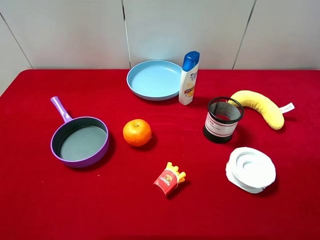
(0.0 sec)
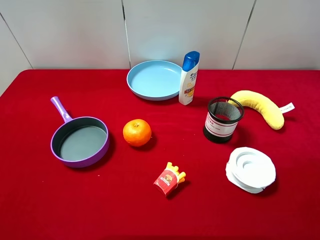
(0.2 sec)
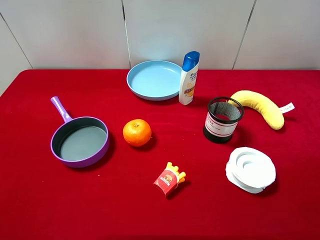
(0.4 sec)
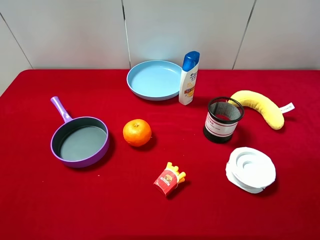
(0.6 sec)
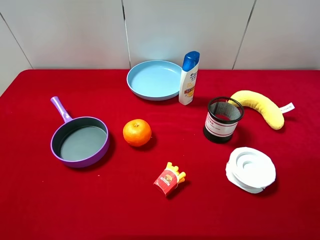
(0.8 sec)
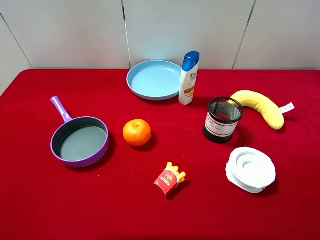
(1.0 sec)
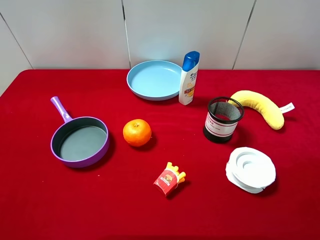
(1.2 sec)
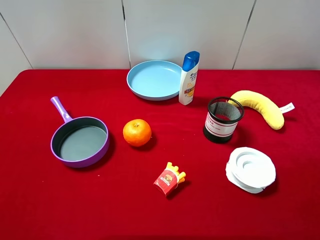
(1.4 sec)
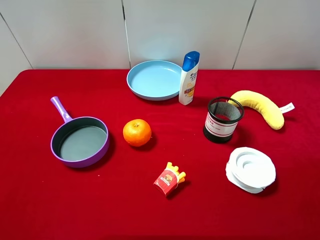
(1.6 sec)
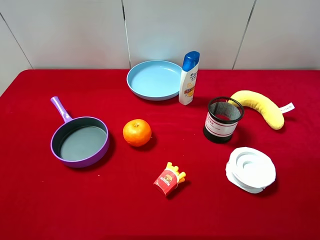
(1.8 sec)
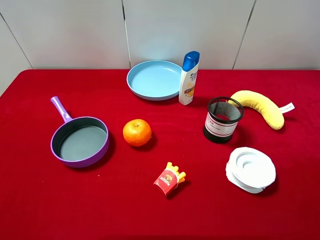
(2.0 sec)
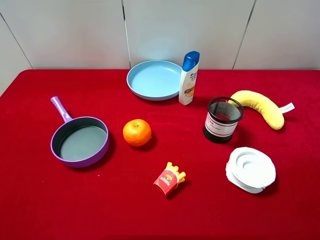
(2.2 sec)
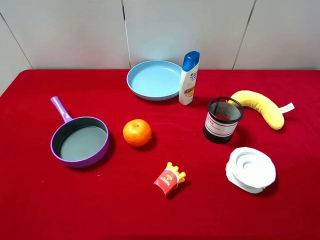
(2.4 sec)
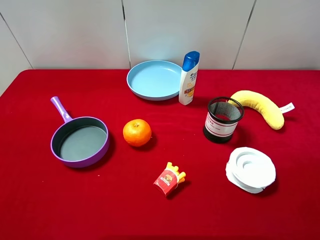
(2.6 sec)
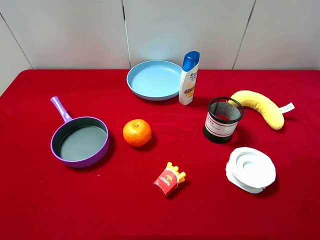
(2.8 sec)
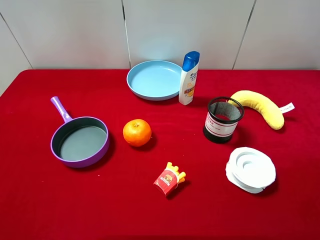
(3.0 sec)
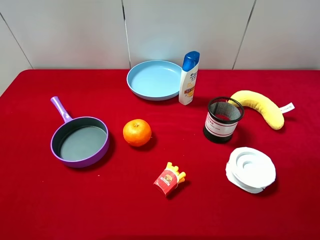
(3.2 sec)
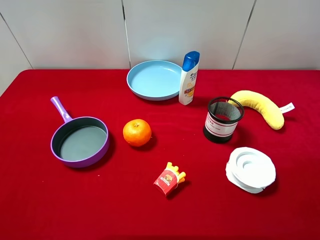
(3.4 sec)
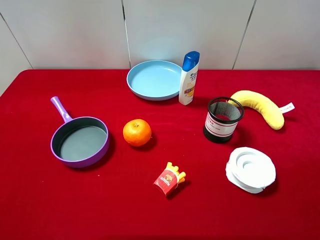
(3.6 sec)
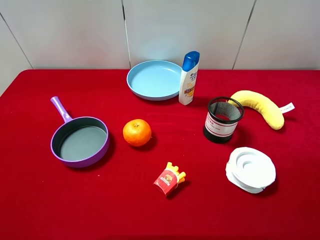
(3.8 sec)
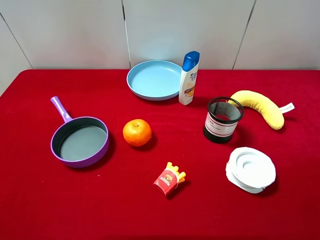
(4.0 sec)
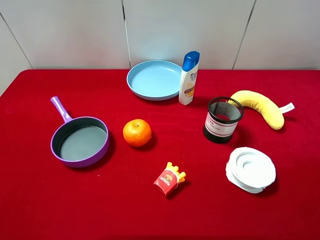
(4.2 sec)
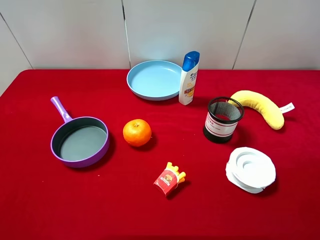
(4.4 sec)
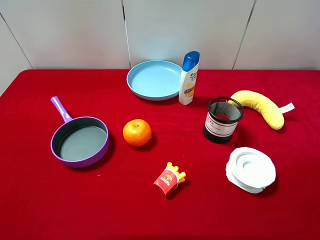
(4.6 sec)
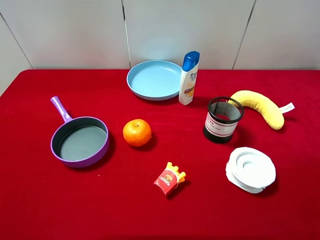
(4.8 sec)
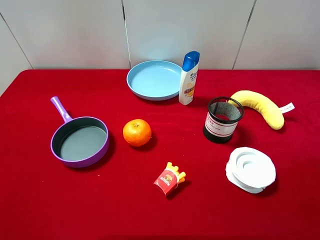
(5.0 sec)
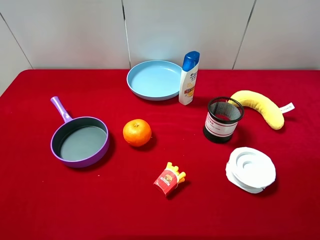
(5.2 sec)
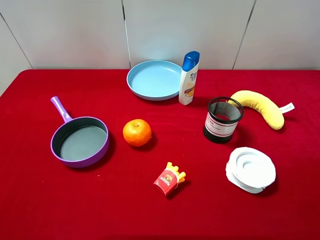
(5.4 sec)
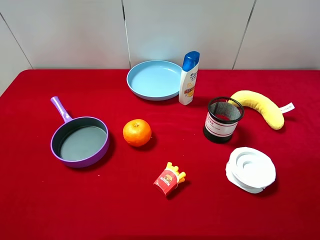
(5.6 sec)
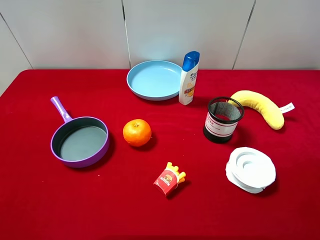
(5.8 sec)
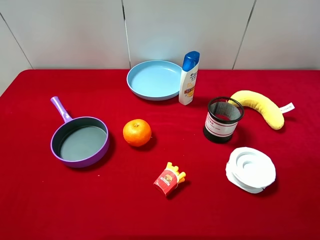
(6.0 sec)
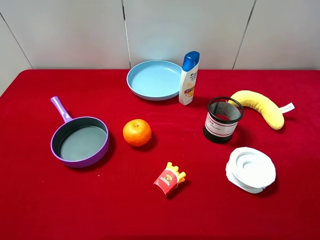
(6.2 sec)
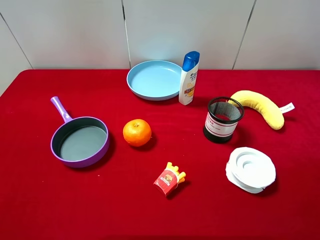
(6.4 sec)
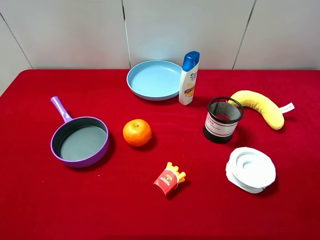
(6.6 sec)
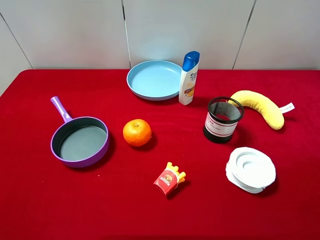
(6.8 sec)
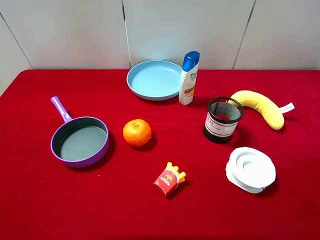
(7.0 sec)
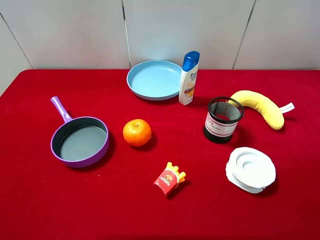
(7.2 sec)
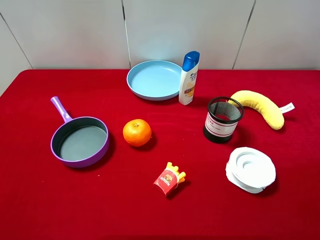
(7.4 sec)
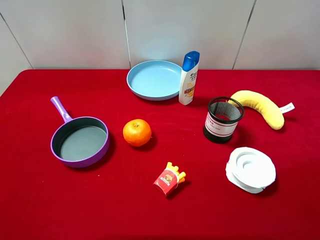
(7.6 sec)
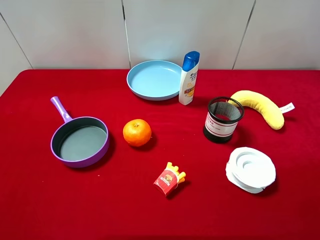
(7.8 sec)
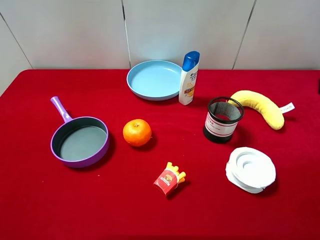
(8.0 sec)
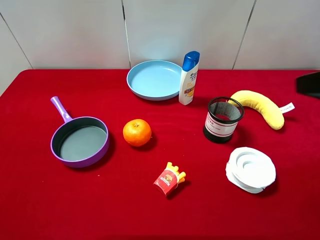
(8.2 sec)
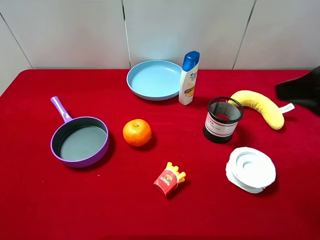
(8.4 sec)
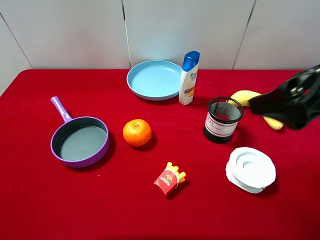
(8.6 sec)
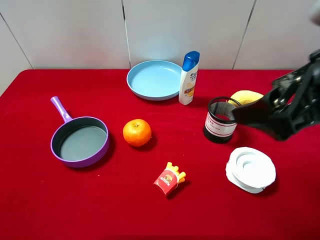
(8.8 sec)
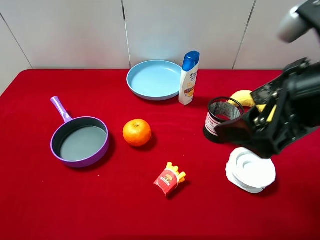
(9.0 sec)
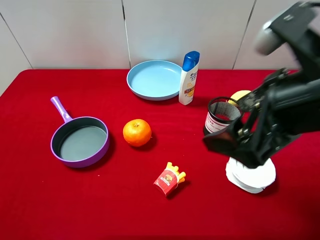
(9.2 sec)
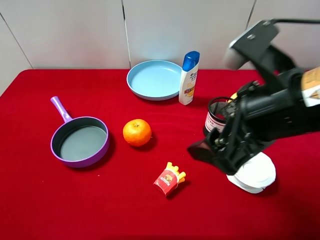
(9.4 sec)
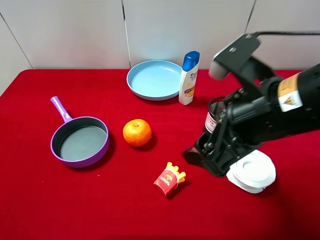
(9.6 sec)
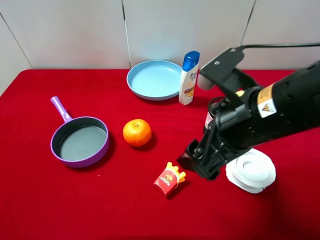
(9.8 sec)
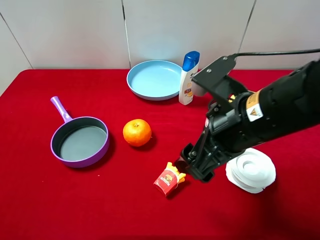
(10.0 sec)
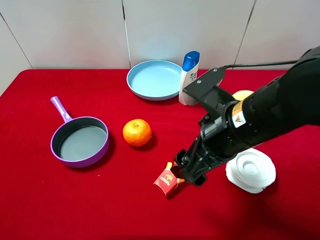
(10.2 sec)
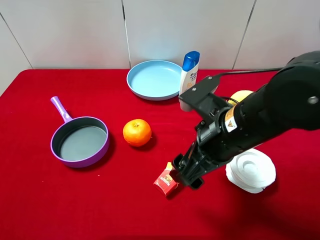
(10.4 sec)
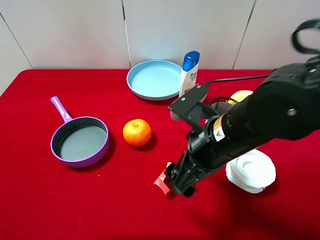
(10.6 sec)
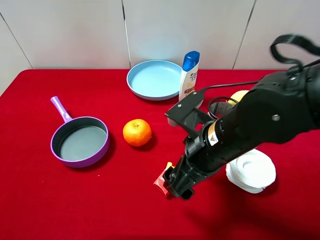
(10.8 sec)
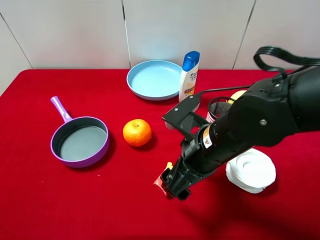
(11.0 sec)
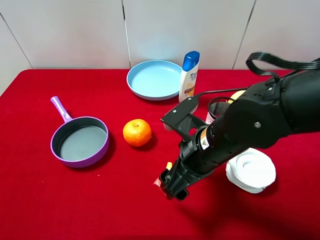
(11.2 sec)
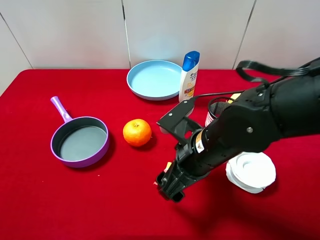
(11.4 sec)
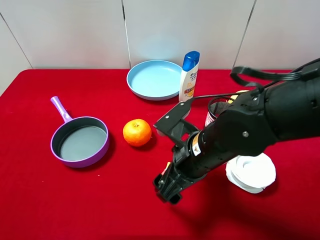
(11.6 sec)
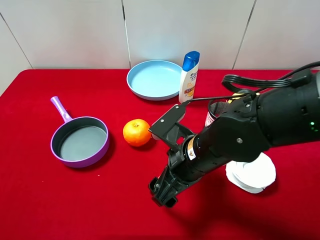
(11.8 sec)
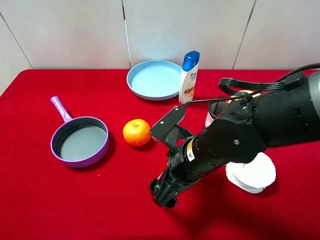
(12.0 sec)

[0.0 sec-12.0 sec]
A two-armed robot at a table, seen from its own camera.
Task of the whole recording: pick up an item with a gripper and place it in a random container on the desktop.
0.0 sec to 6.0 sec: Both grippers stay about where they are.
7.6 sec to 9.0 sec: The right gripper moves to the left and forward, about 15 cm.
9.0 sec to 10.4 sec: The right gripper travels downward and to the left by approximately 10 cm.
10.4 sec to 12.0 sec: The right gripper moves downward, some 5 cm.

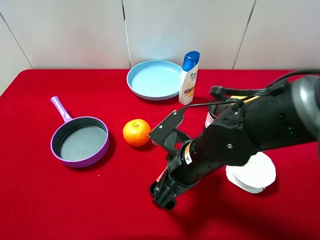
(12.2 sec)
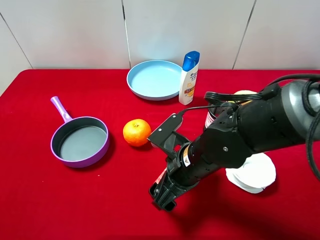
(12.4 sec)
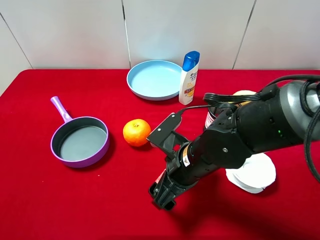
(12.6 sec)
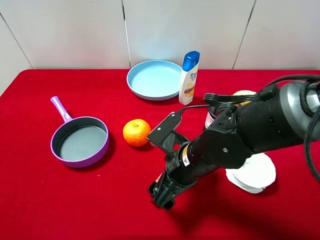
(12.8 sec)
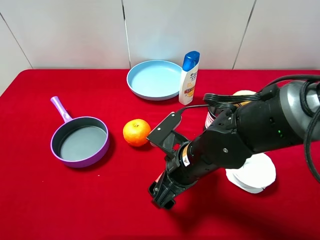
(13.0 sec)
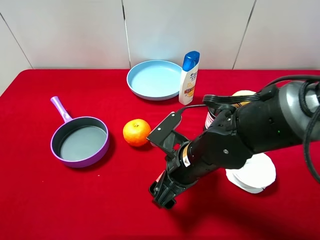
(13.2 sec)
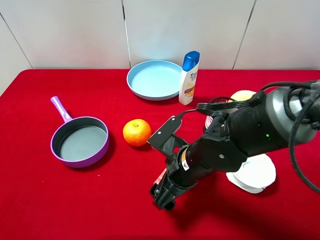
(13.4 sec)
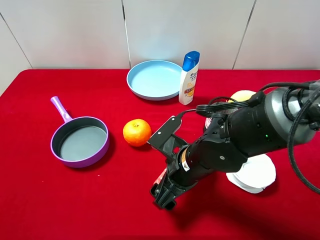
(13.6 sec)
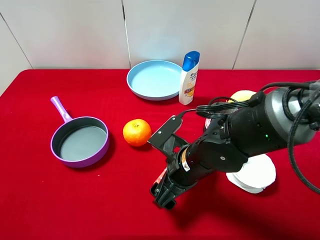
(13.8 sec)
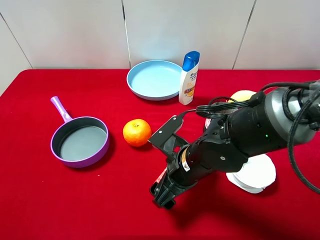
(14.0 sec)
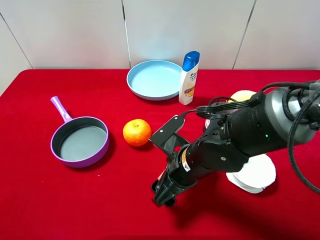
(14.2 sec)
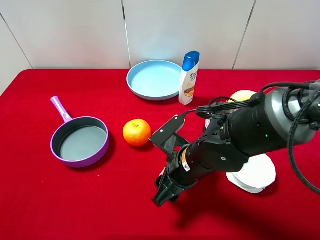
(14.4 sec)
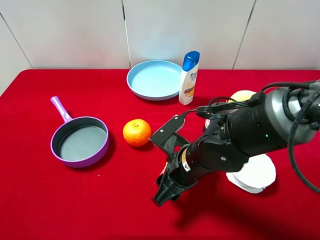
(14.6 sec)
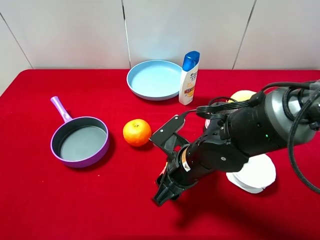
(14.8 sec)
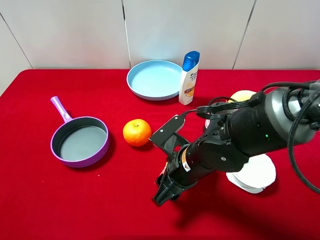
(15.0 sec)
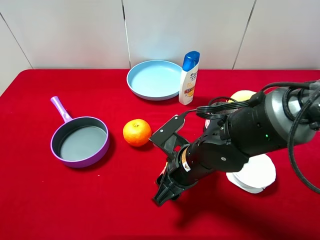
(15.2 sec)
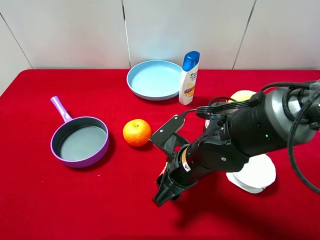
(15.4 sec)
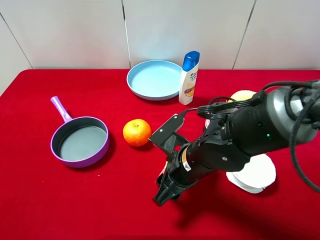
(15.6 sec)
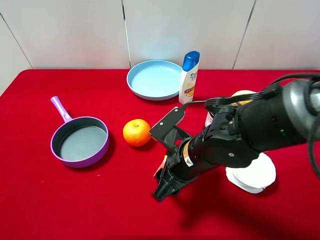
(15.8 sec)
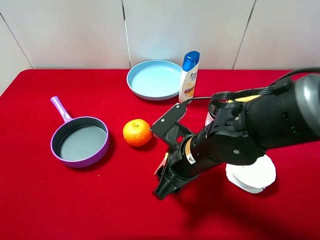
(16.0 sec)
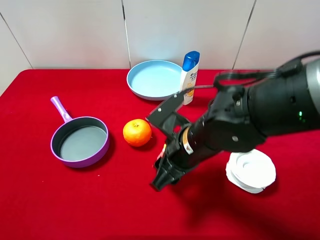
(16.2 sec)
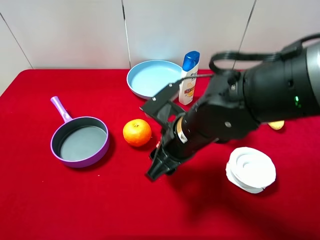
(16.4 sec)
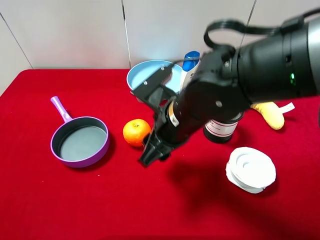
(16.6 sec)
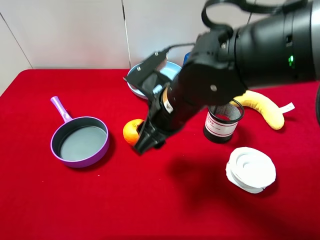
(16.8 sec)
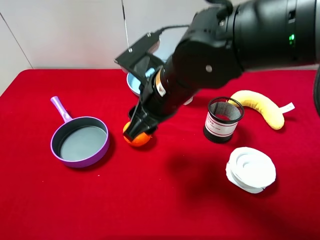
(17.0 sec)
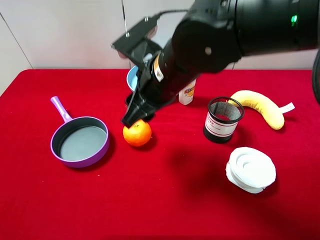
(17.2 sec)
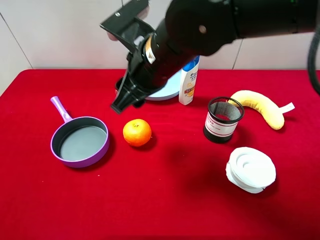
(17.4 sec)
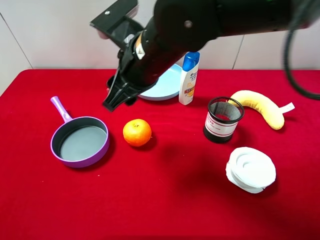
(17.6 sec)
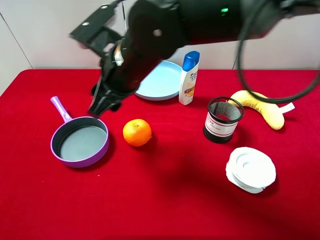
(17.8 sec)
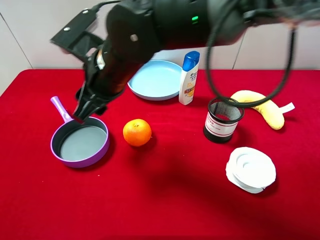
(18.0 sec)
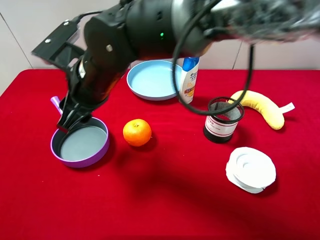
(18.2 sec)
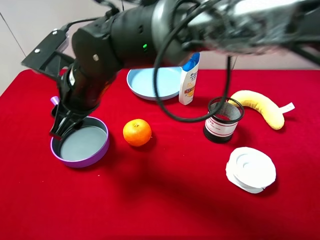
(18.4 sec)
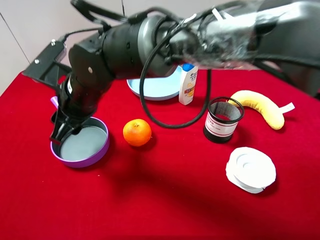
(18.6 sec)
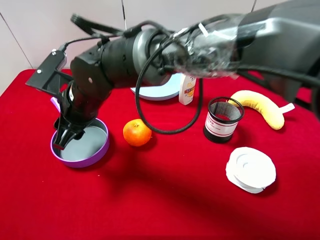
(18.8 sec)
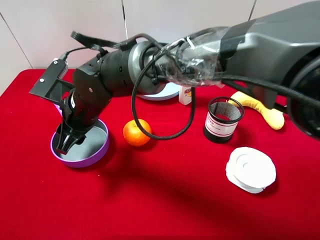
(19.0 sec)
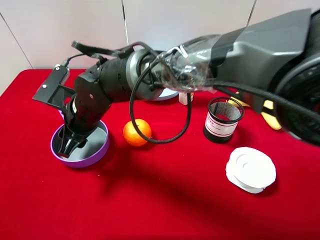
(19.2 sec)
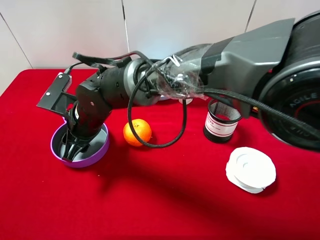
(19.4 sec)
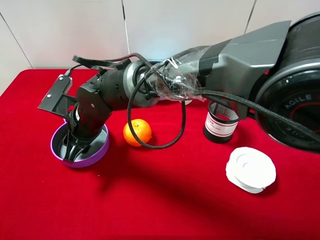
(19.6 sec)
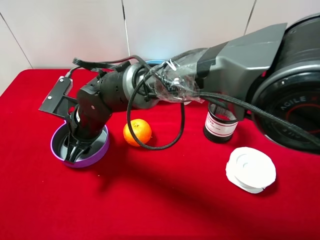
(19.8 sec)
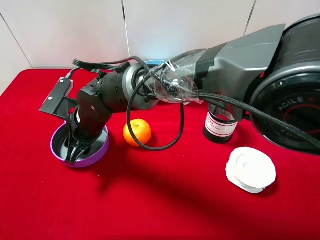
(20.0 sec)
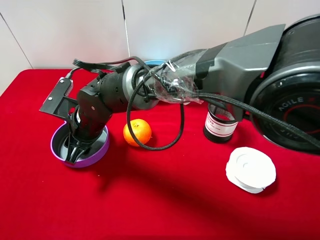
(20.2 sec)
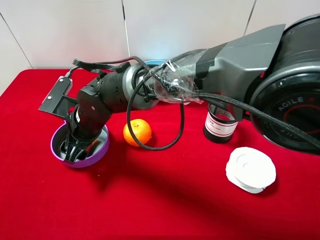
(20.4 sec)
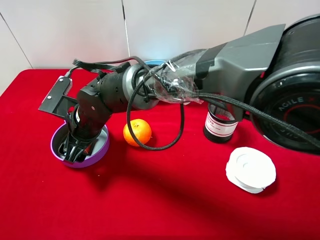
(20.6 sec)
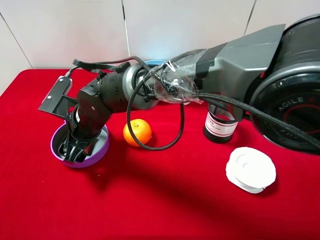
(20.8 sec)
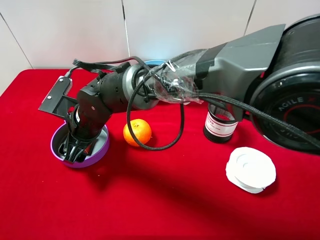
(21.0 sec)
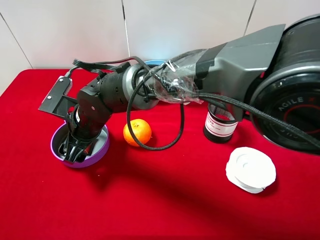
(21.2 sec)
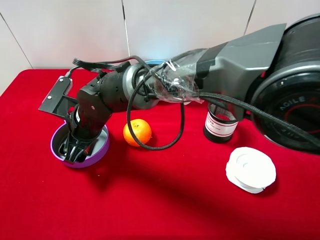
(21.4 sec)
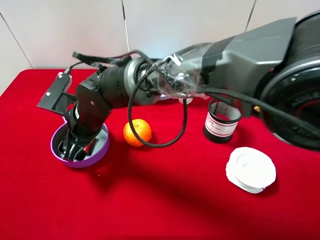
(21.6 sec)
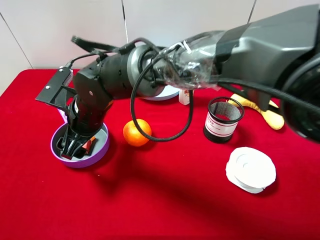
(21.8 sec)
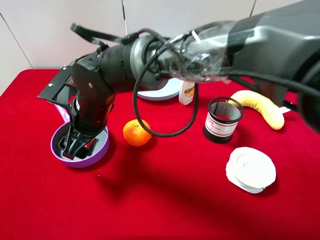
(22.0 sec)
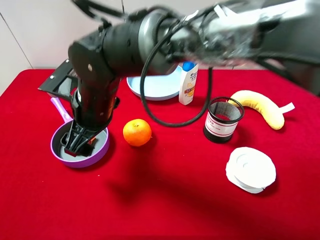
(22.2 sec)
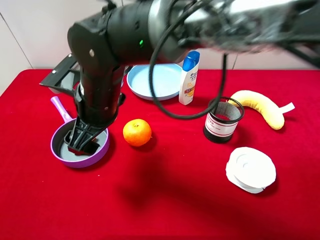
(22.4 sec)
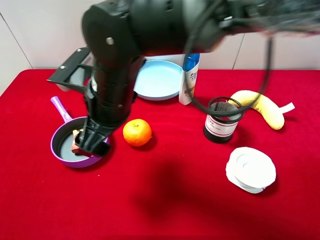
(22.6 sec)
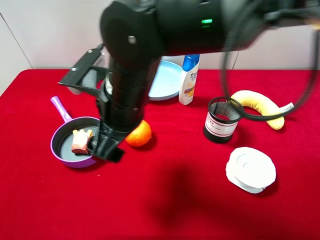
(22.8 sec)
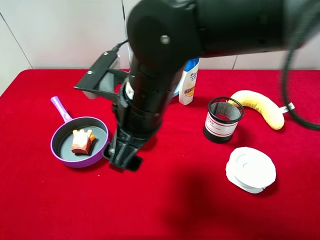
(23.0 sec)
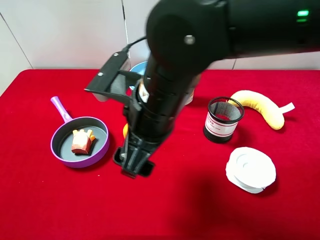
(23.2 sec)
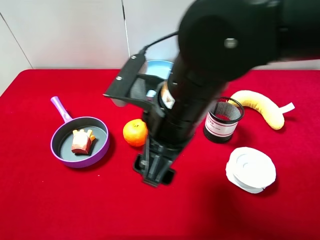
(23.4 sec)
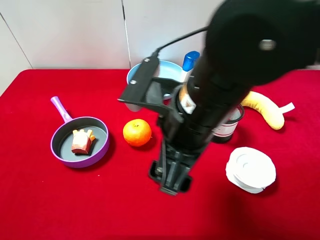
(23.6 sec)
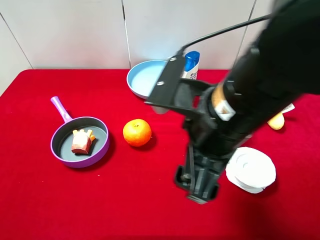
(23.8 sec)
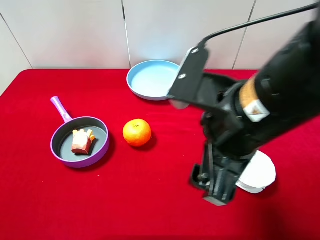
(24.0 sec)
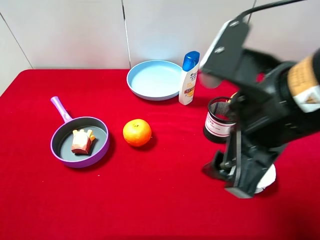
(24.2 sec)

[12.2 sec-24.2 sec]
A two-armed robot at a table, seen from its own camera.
Task of the whole recording: pick up an item with a gripper and place it in a random container on the desktop.
12.2 sec to 13.8 sec: The grippers make only small movements.
13.8 sec to 15.2 sec: The right gripper closes its fingers.
15.2 sec to 16.6 sec: The right gripper goes about 10 cm upward.
16.6 sec to 18.2 sec: The right gripper is displaced to the left by approximately 15 cm.
18.2 sec to 19.8 sec: The right gripper moves downward, some 10 cm.
19.8 sec to 21.2 sec: The right gripper opens.
21.2 sec to 22.6 sec: The right gripper travels upward and to the right by about 10 cm.
22.6 sec to 24.2 sec: The right gripper shifts about 20 cm to the right and backward.
